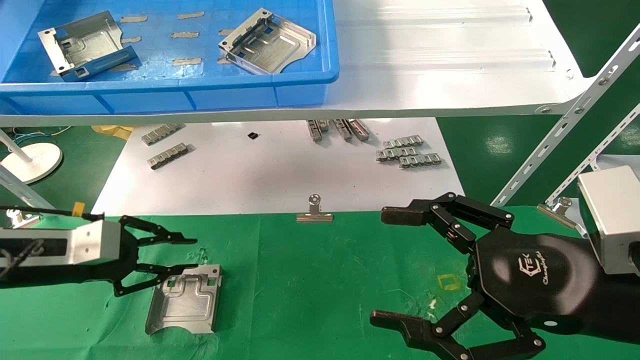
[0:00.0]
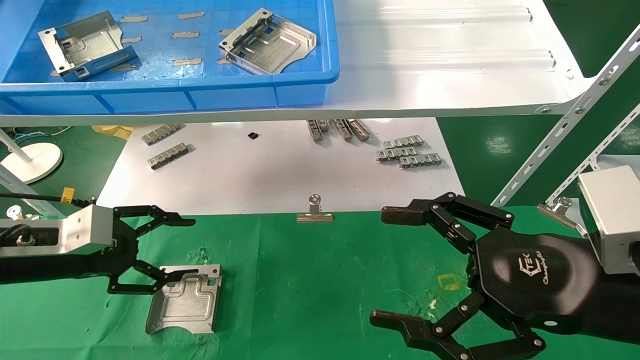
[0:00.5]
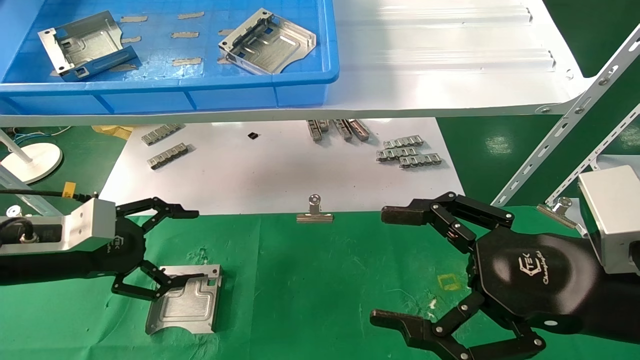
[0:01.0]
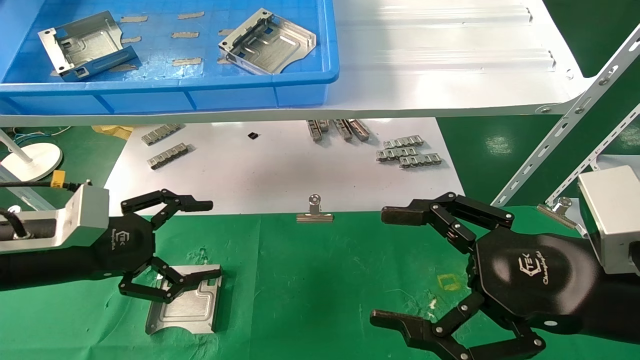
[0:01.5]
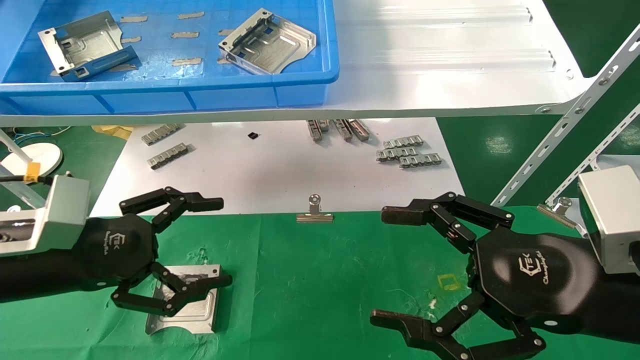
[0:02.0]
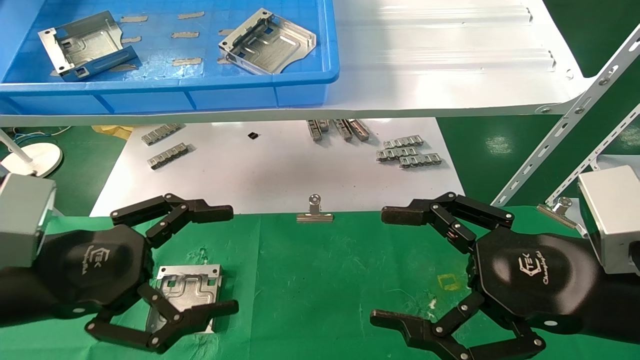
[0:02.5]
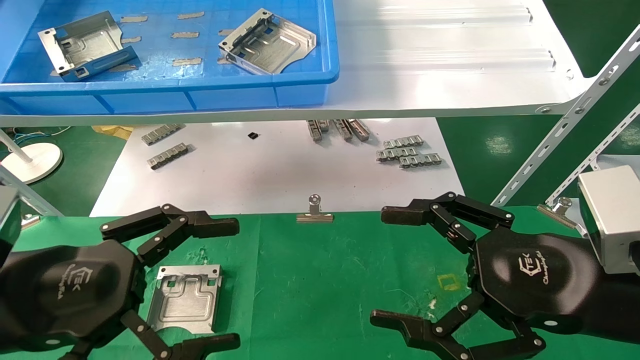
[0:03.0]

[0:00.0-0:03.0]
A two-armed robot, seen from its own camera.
Task of the whole recording: use the mechanical arm to pick up the parts and place them on the table.
0:00.0 to 0:01.5: The left gripper ends up approximately 5 cm from where it was, and opens its fingers.
0:01.5 to 0:03.0: The left gripper travels backward and to the right by about 10 cm.
